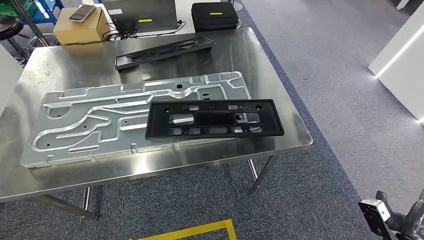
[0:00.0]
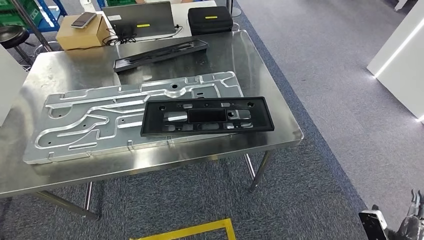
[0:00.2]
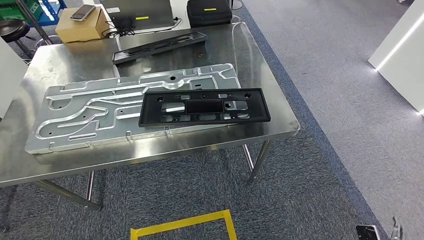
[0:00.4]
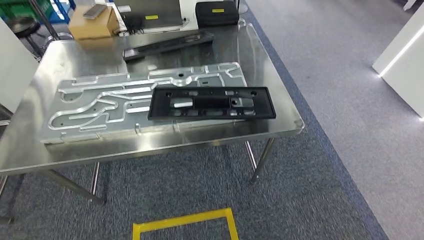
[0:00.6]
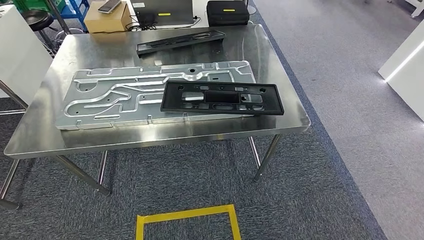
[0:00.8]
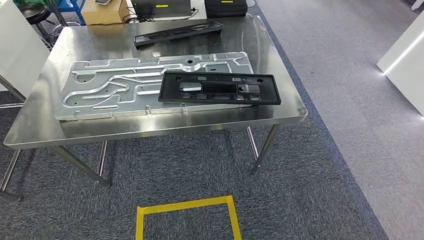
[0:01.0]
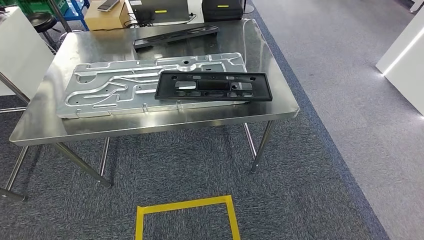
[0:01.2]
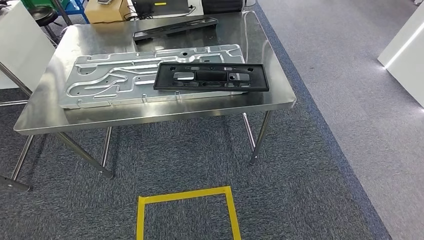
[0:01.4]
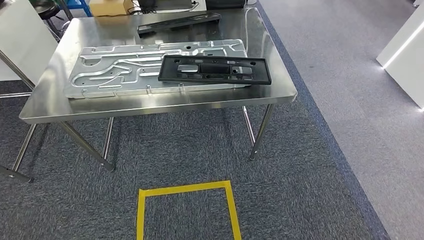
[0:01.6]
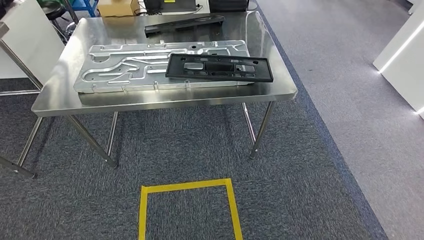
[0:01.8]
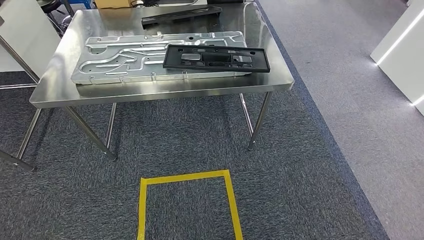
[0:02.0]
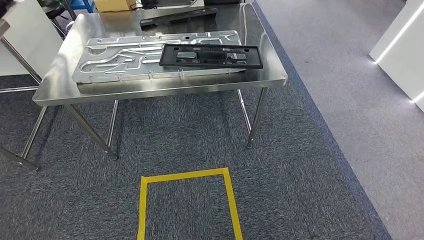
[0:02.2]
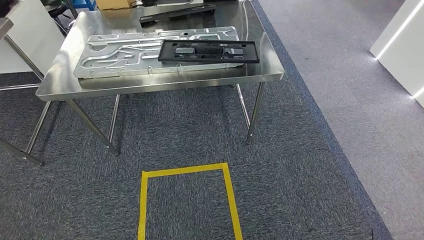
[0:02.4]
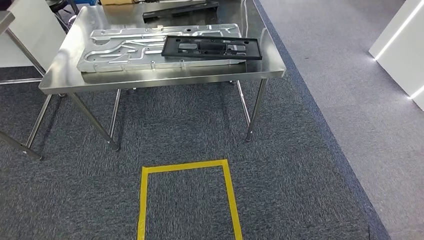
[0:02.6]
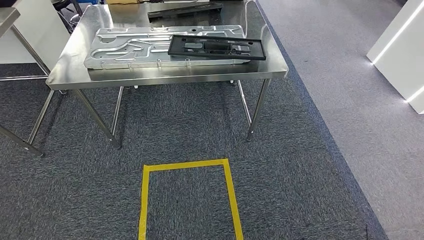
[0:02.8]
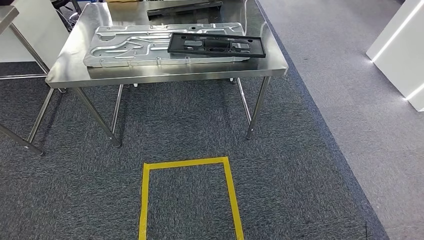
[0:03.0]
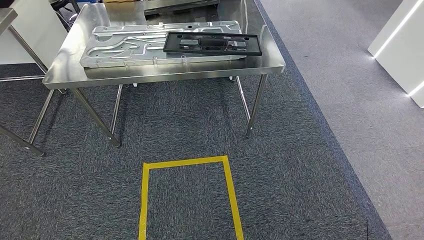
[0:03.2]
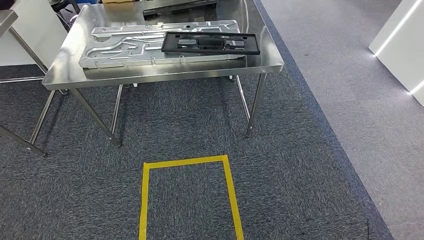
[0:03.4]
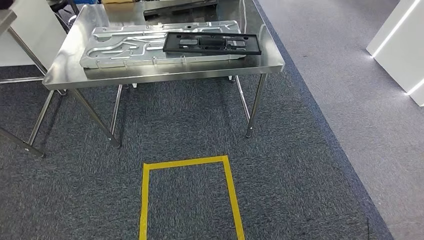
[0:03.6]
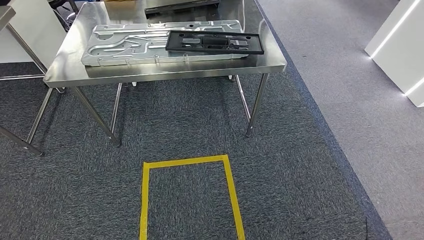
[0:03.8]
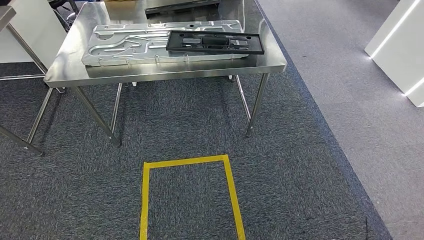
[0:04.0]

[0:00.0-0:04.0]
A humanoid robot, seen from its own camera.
Step, 0:00.0 to 0:04.0: Move to the initial position of the shelf.
0:02.6 to 0:04.0: The hands stay close to where they were, moving slightly.
